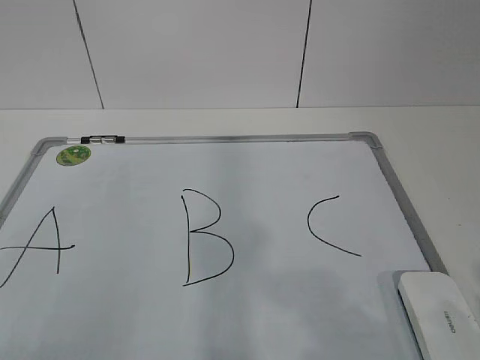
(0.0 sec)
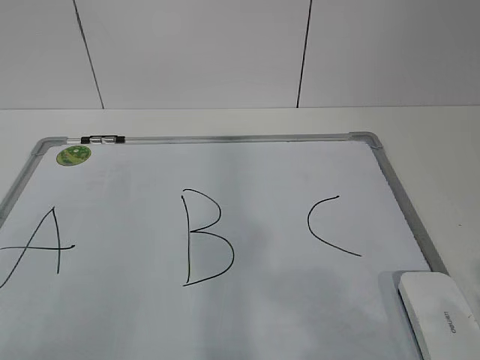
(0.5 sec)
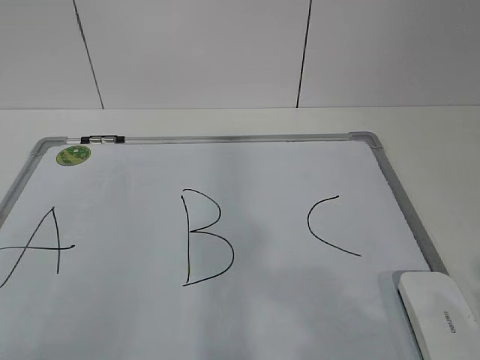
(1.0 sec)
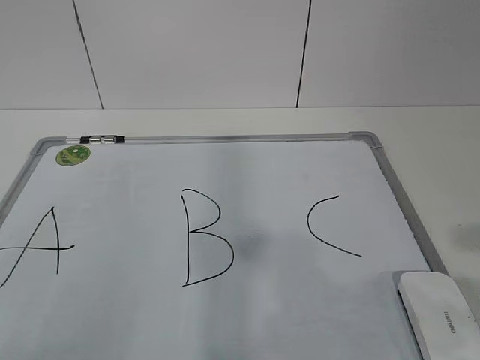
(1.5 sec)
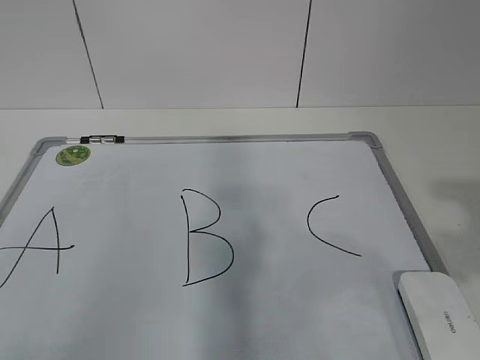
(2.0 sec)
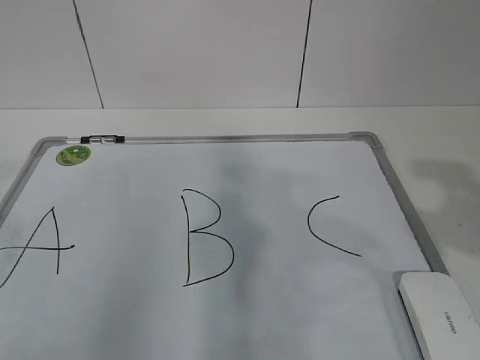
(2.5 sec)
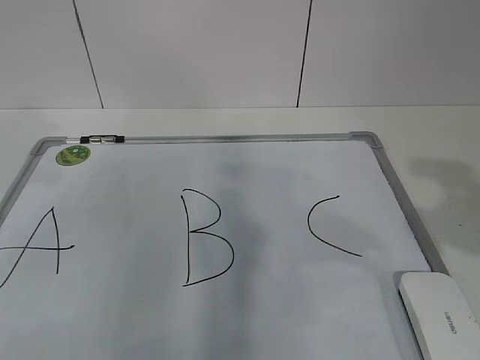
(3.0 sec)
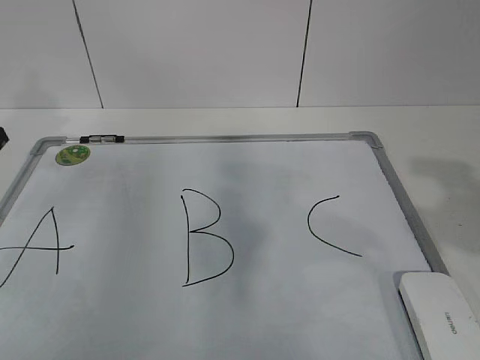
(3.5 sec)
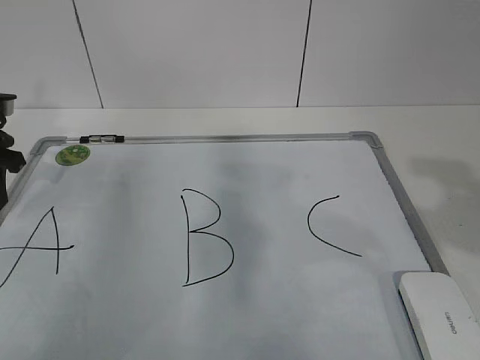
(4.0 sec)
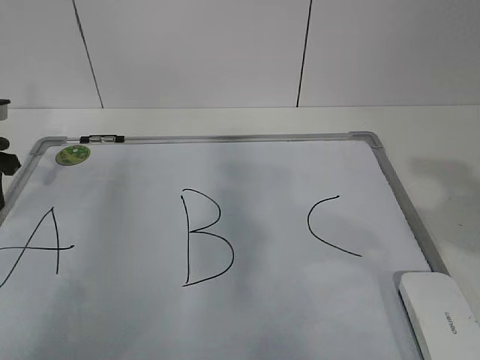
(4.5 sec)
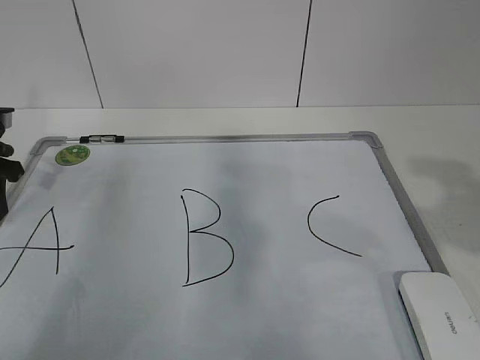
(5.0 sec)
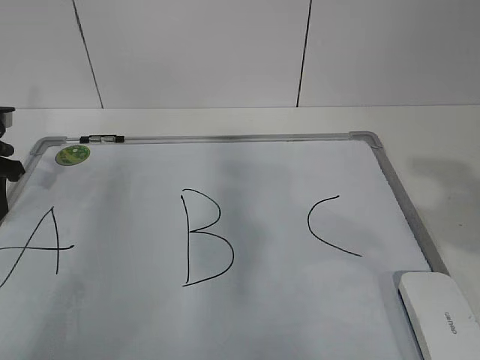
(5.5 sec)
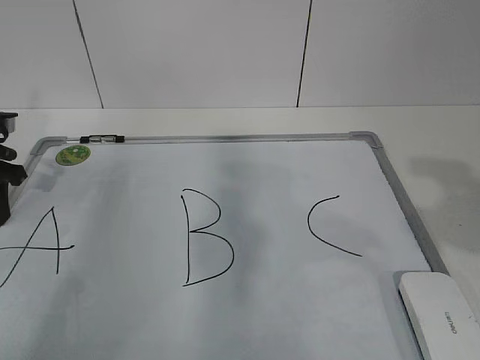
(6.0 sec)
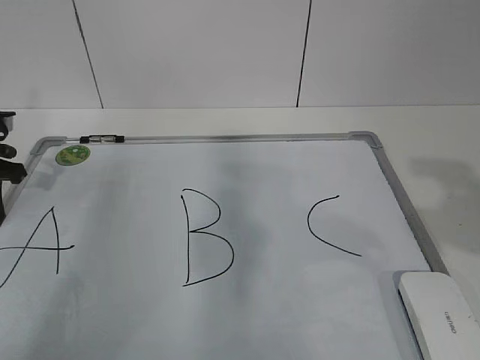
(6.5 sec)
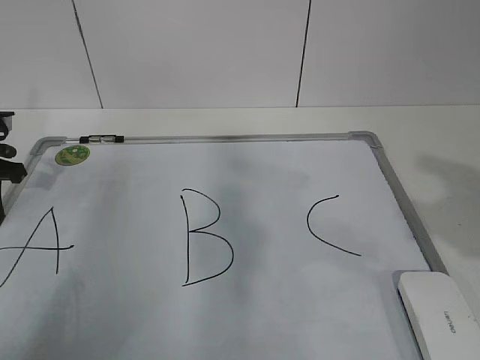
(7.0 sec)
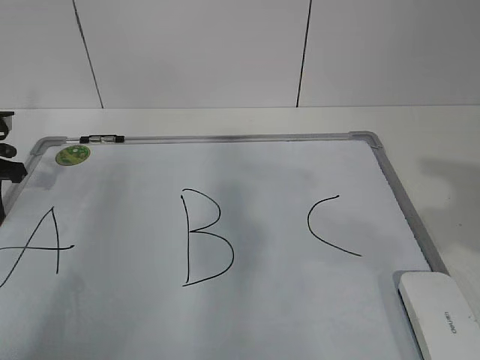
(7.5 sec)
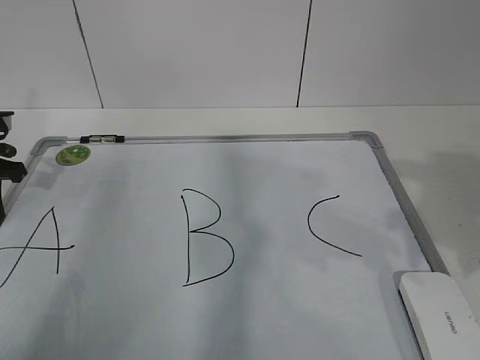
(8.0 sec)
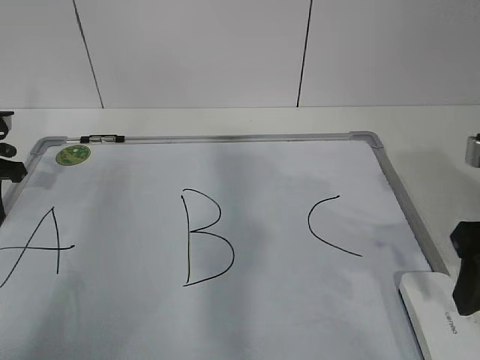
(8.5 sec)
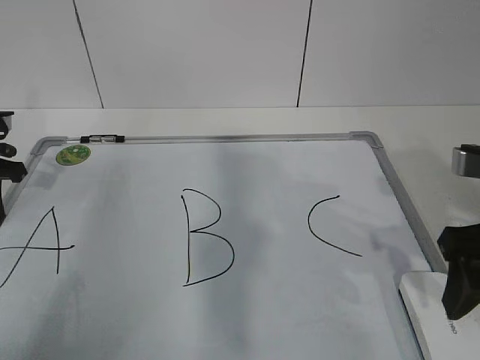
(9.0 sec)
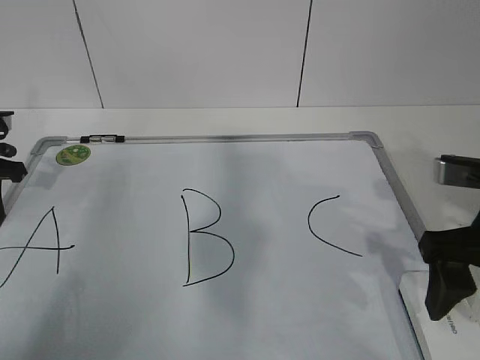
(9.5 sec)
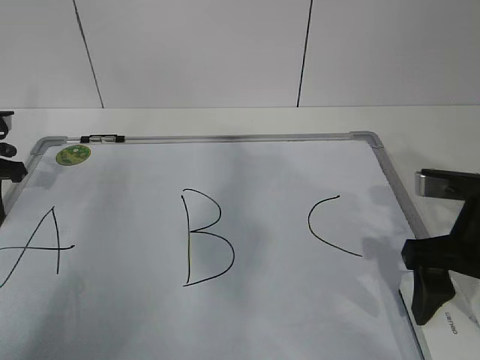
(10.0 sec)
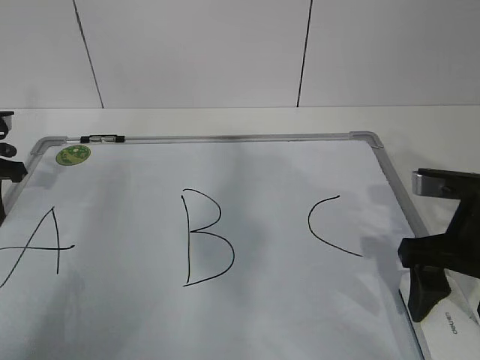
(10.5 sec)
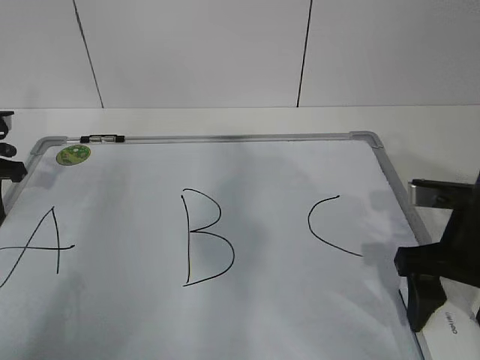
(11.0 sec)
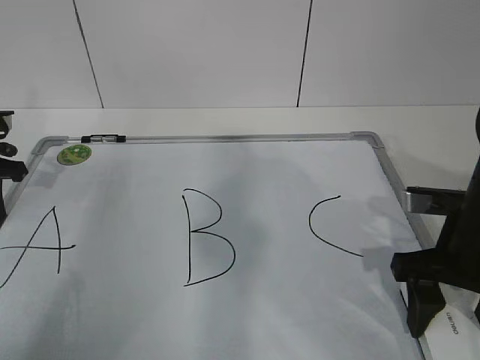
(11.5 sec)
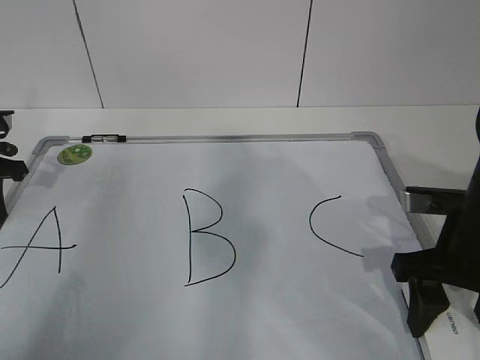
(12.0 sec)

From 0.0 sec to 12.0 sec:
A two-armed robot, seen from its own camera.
Task of the whole recording: pick up the eraser on the blackboard and erase the letter "B".
Step, from 0.0 sec to 5.0 sec: Hold the drawing board steady with your left hand.
Step, from 5.5 sec to 10.0 sec: Grab the eraser with your right hand.
From 2.0 sec to 4.0 sec: The left gripper moves forward, about 35 cm.
From 4.0 sec to 6.0 sec: The grippers stay close to where they were, moving slightly.
From 8.0 sec to 10.0 sec: The right gripper goes roughly 10 cm downward and forward, and opens its fingers.
From 10.0 sec to 12.0 sec: The right gripper closes up.

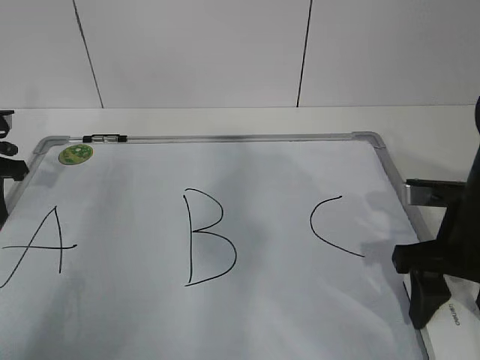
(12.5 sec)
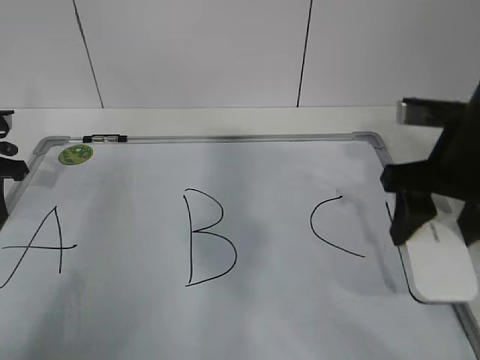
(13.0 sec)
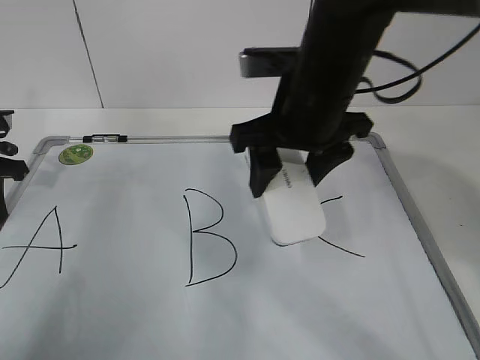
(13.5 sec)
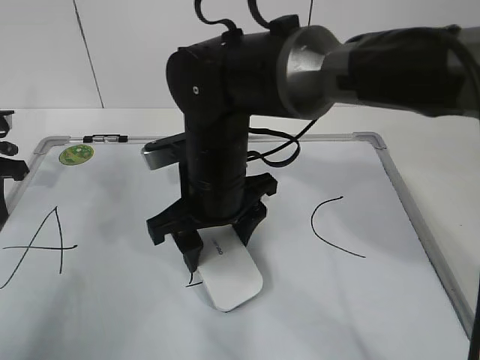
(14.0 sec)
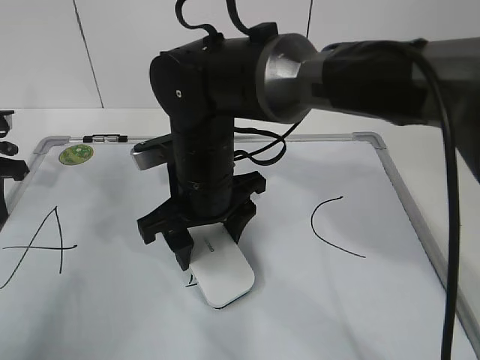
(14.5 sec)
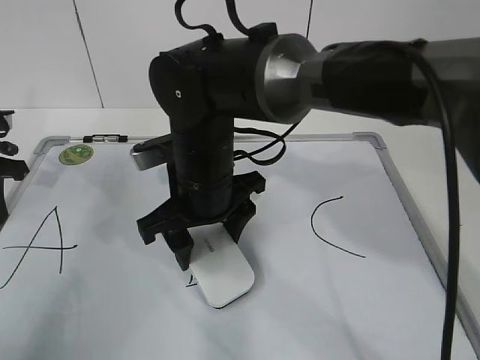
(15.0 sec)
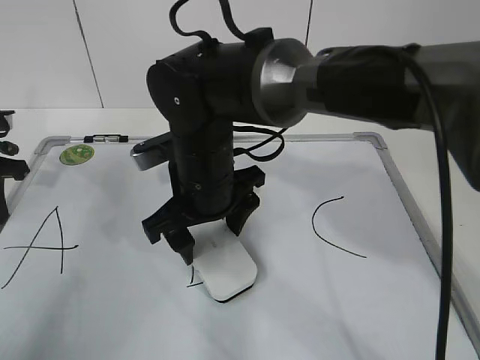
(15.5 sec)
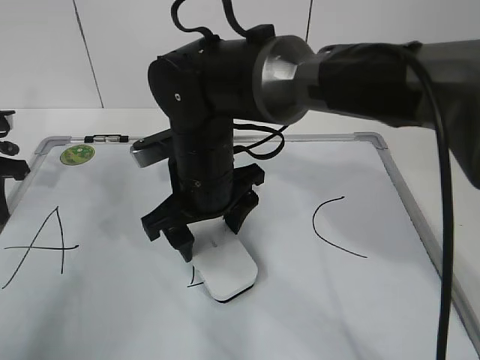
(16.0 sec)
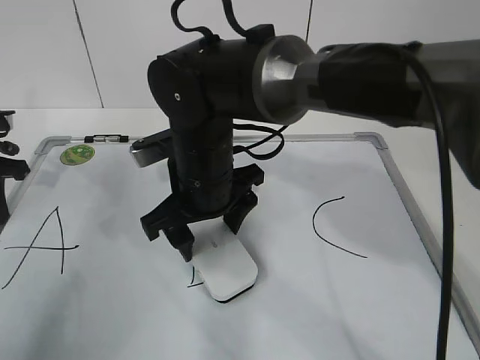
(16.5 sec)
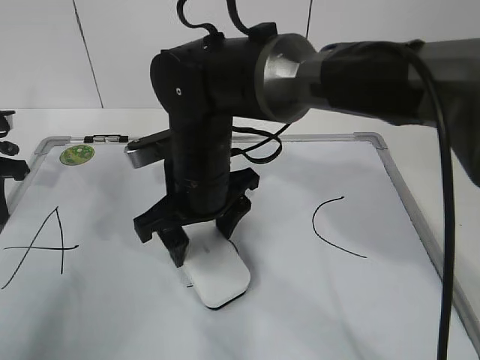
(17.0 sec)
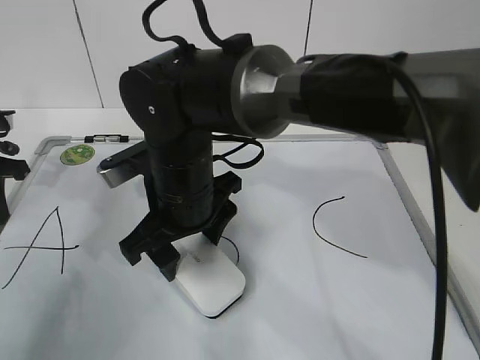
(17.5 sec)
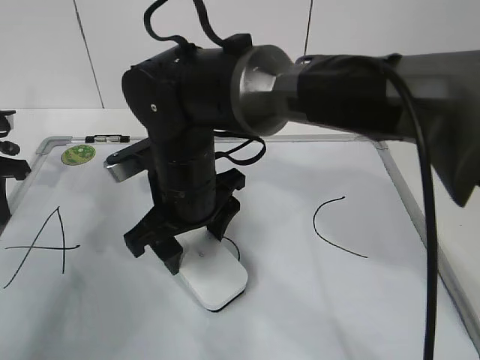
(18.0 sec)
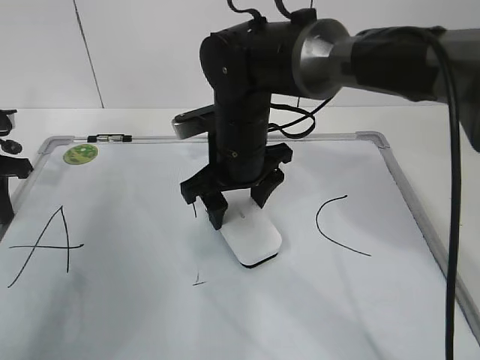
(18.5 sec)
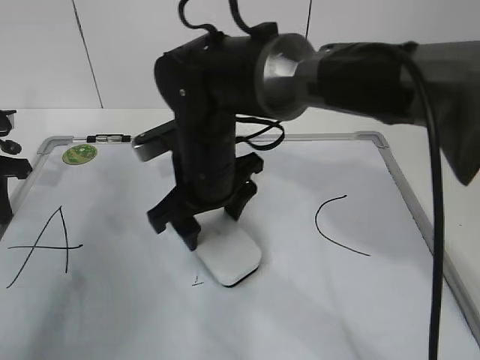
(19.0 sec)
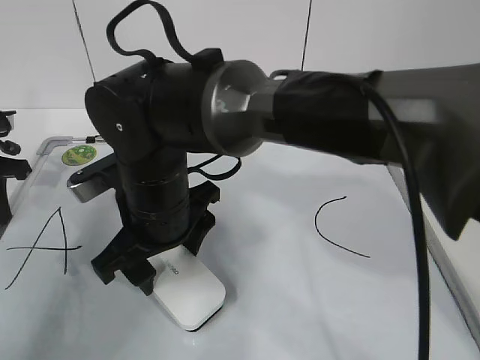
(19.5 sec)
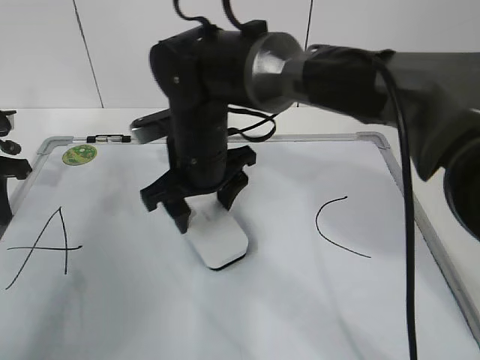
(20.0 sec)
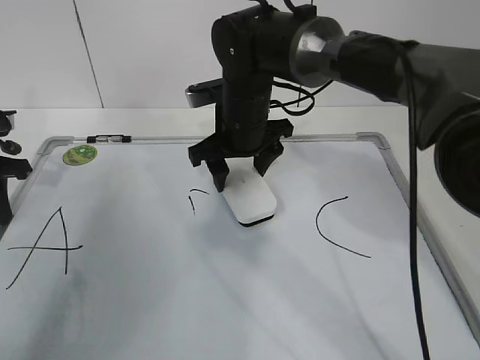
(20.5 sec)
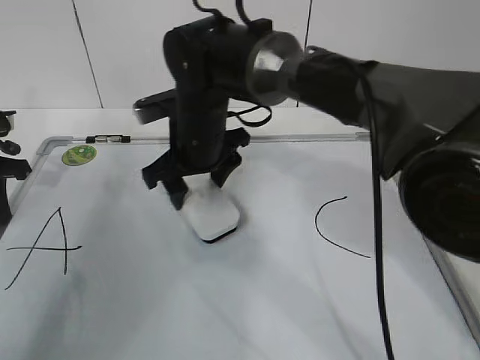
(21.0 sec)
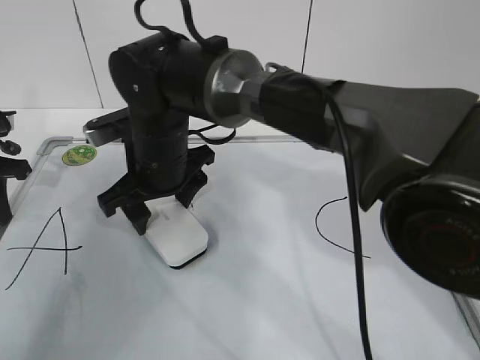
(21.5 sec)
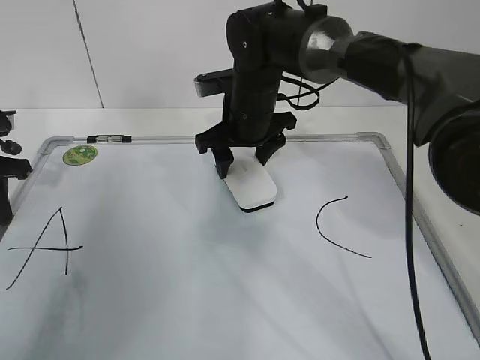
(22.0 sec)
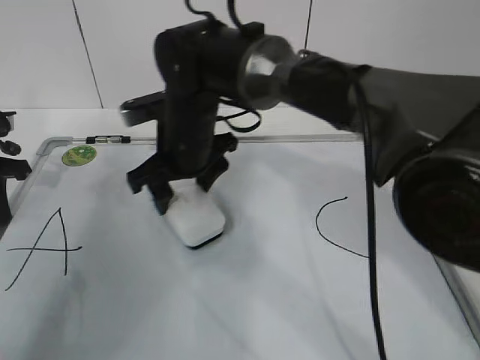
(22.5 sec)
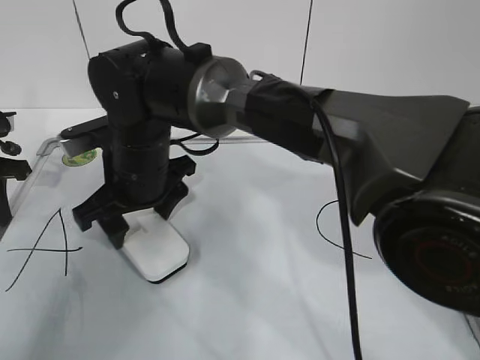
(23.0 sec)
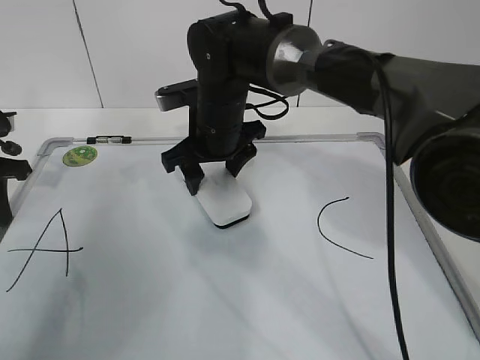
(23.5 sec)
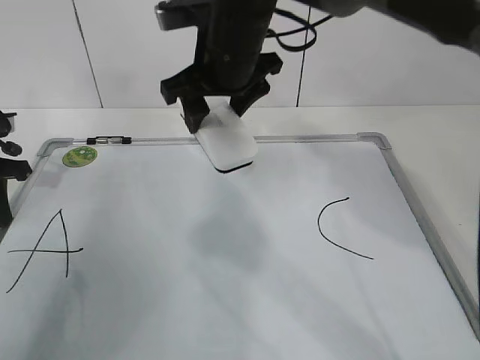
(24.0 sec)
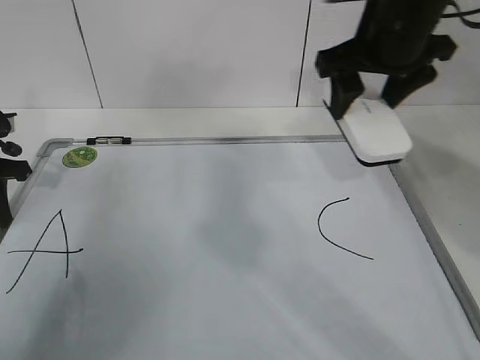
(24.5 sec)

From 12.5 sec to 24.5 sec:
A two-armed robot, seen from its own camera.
Task of the whole recording: pick up the eraser on the blackboard and erase the letter "B".
Step, from 12.5 sec to 19.0 sec: Erase the letter B with your right hand.
Step, from 20.0 sec to 23.0 sec: Put down the eraser with your right hand.
From 12.5 sec to 14.5 sec: The right gripper moves to the left, approximately 25 cm.
From 14.5 sec to 16.5 sec: The right gripper opens up.
From 16.5 sec to 18.5 sec: The right gripper moves about 5 cm.
From 18.5 sec to 20.5 sec: The right gripper goes approximately 5 cm forward.
From 20.5 sec to 22.5 sec: The right gripper goes left and right, about 10 cm each way, reversing 2 times.
From 22.5 sec to 24.5 sec: The right gripper moves to the right and upward, approximately 25 cm.

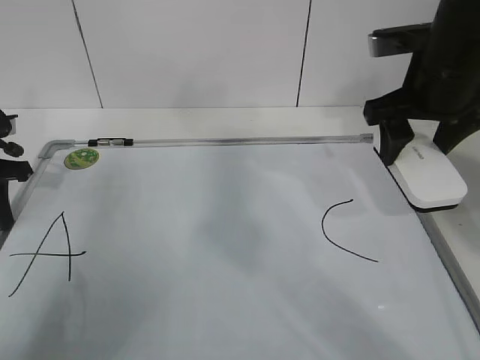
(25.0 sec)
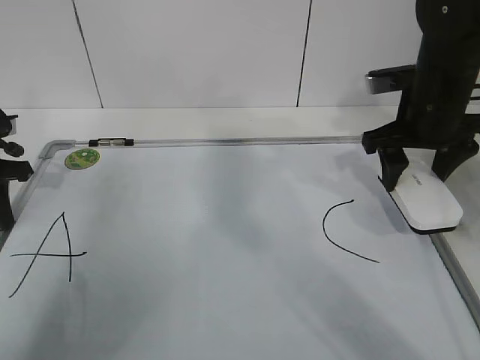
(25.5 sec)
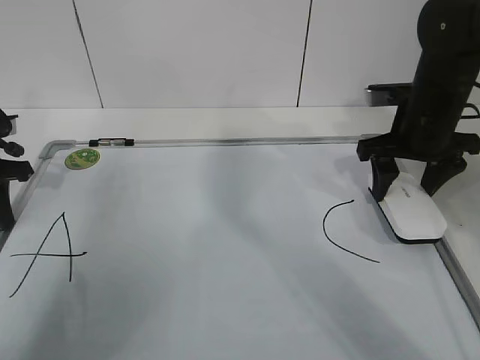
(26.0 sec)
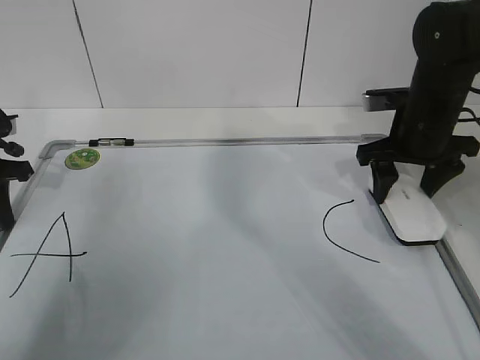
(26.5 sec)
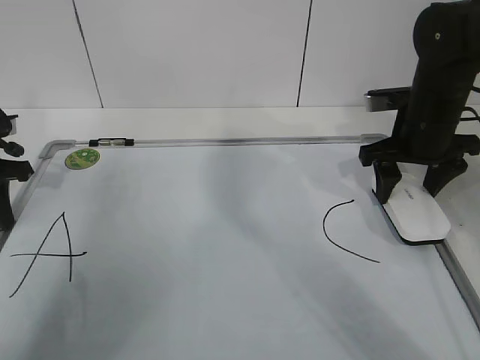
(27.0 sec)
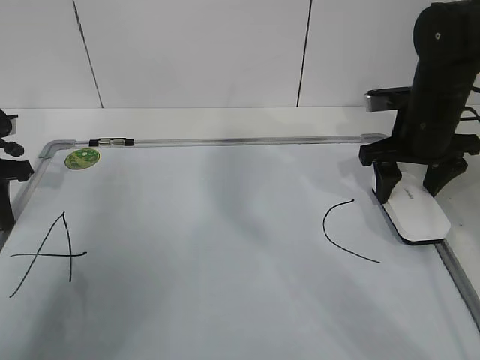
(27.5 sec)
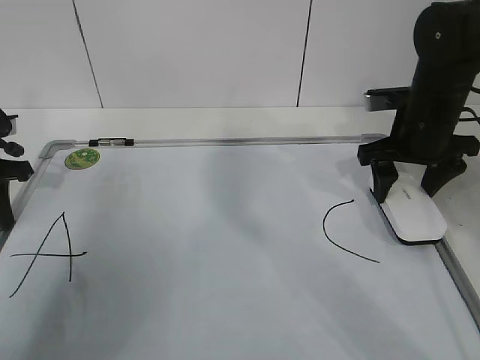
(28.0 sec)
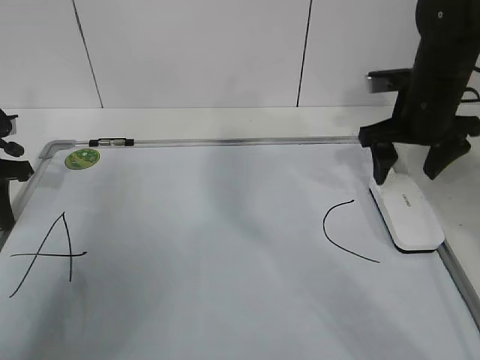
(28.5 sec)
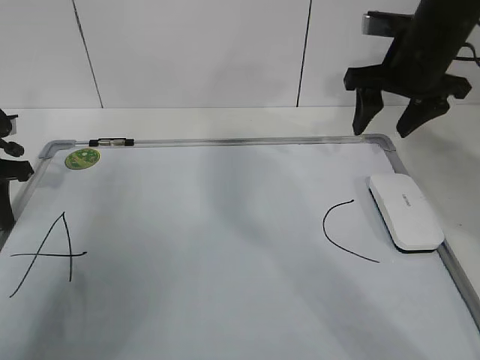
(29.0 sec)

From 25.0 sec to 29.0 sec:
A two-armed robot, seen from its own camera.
Task of the whole recording: pick up the eraser on the blackboard and erase the letter "B".
From 25.0 sec to 27.0 sec: The right gripper moves downward, some 10 cm.
From 27.0 sec to 29.0 sec: The right gripper travels upward by some 5 cm, and opens, then closes once more.
